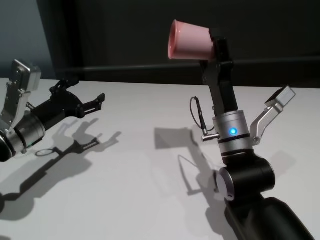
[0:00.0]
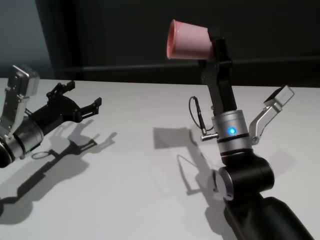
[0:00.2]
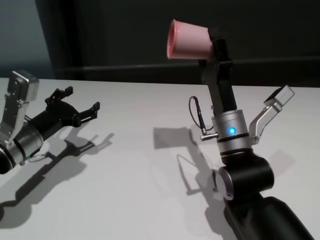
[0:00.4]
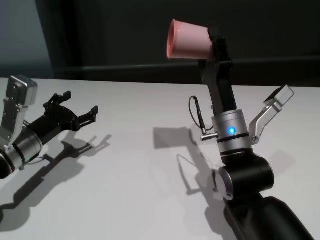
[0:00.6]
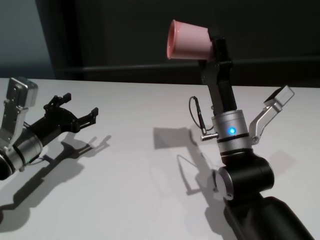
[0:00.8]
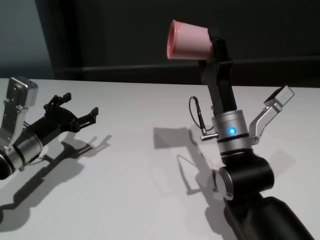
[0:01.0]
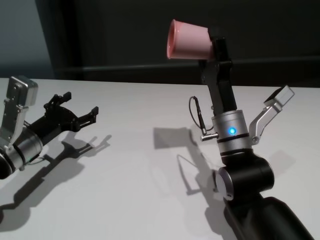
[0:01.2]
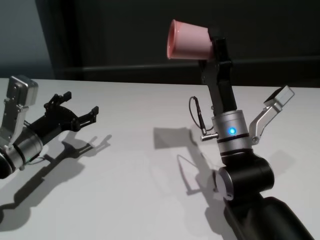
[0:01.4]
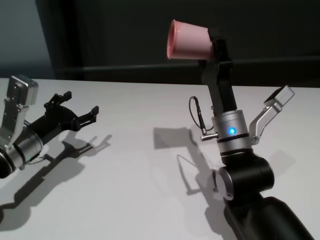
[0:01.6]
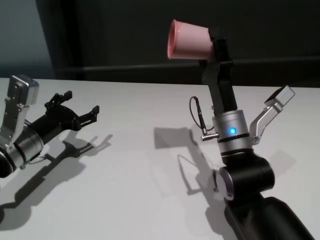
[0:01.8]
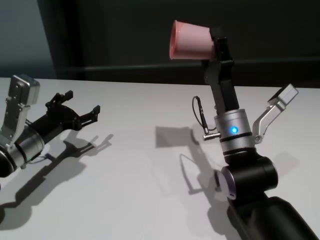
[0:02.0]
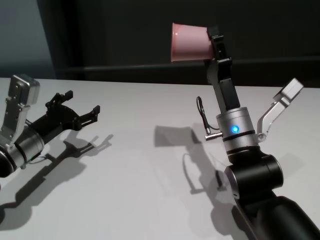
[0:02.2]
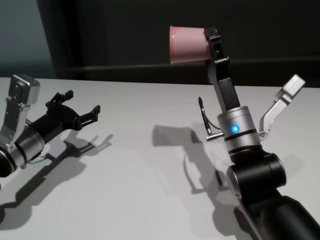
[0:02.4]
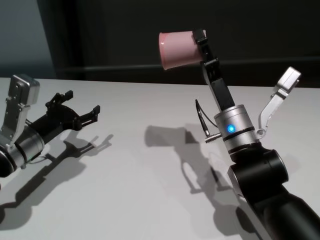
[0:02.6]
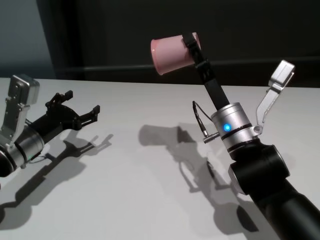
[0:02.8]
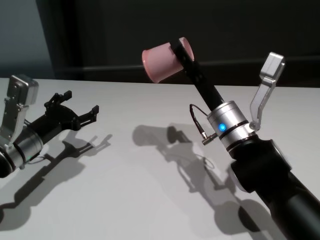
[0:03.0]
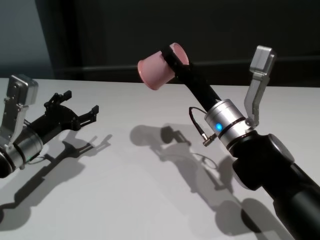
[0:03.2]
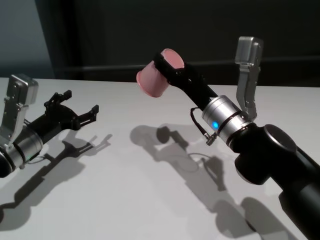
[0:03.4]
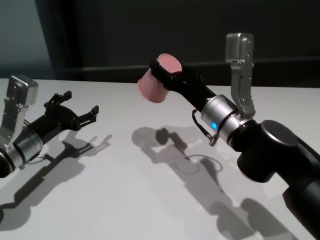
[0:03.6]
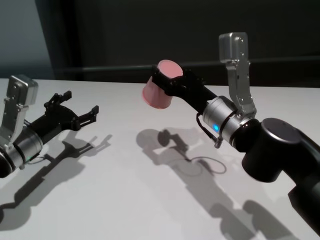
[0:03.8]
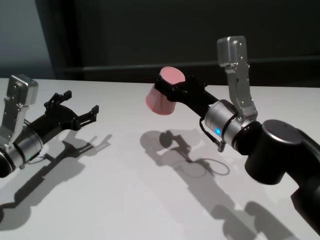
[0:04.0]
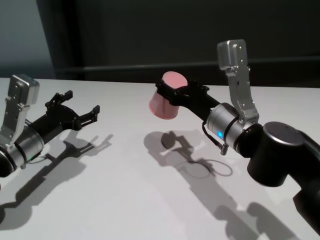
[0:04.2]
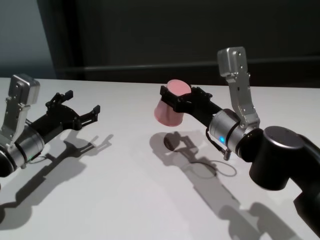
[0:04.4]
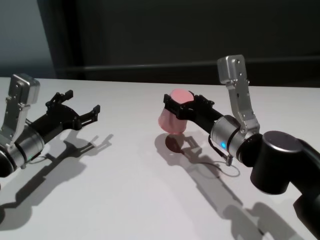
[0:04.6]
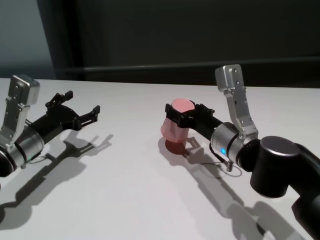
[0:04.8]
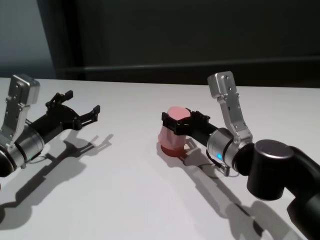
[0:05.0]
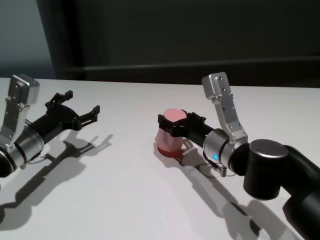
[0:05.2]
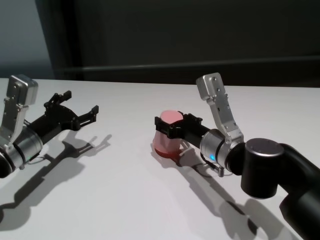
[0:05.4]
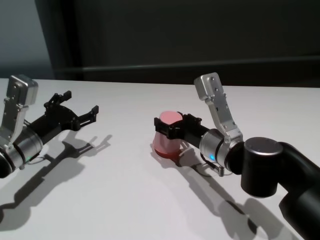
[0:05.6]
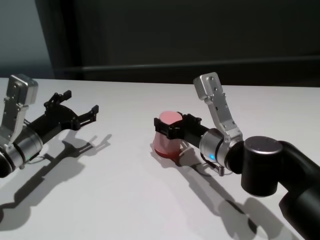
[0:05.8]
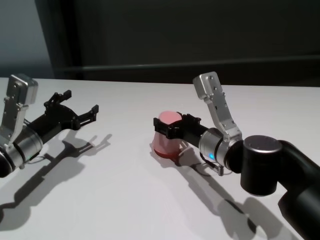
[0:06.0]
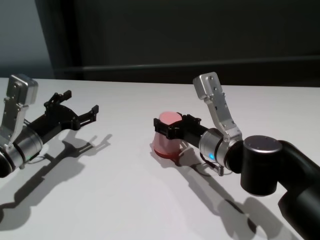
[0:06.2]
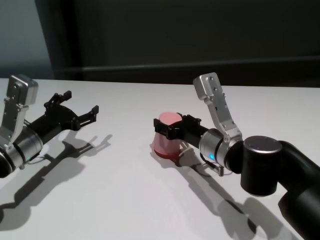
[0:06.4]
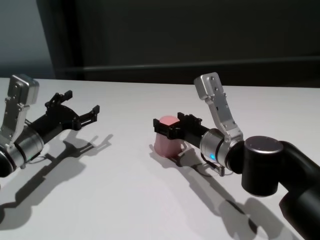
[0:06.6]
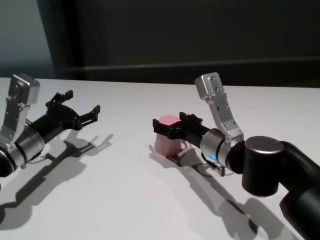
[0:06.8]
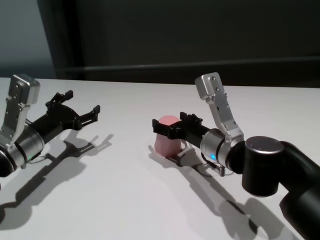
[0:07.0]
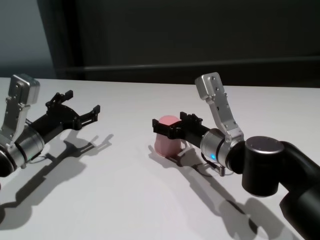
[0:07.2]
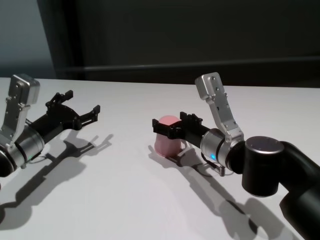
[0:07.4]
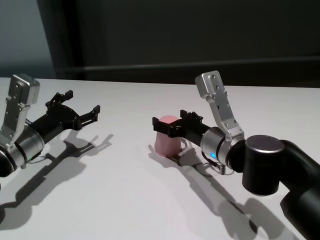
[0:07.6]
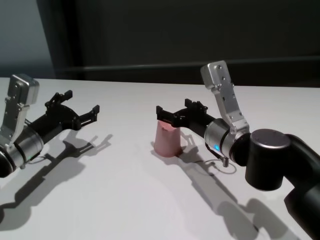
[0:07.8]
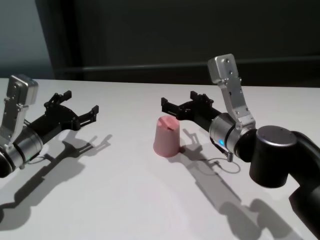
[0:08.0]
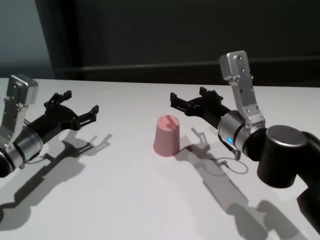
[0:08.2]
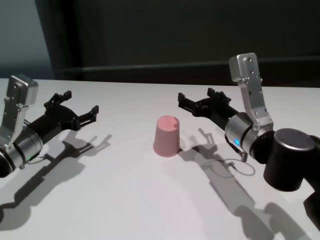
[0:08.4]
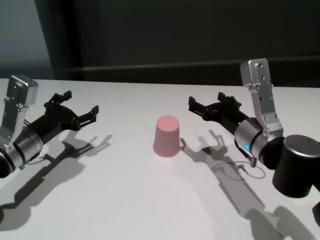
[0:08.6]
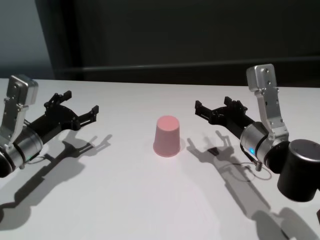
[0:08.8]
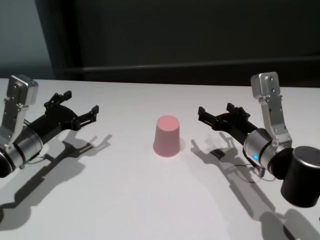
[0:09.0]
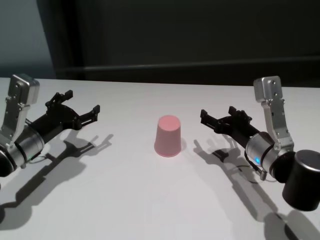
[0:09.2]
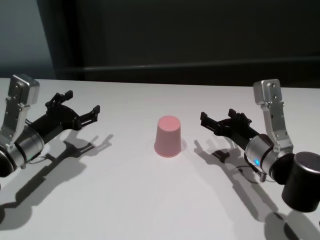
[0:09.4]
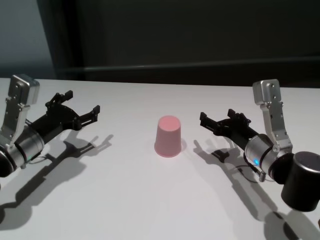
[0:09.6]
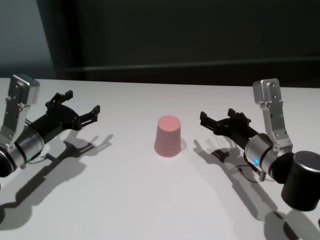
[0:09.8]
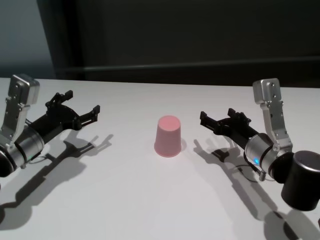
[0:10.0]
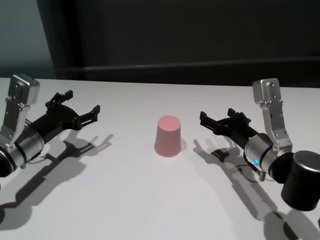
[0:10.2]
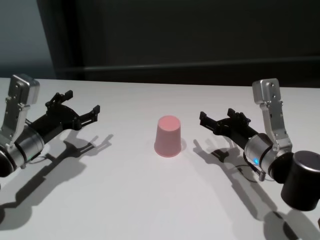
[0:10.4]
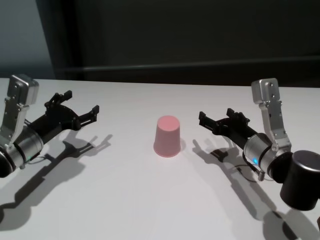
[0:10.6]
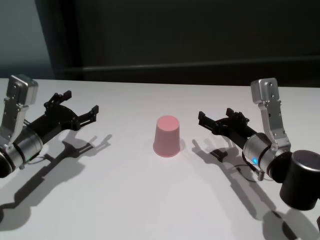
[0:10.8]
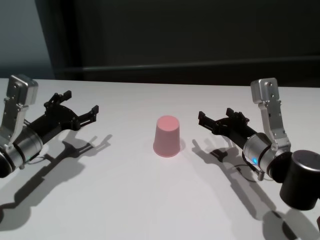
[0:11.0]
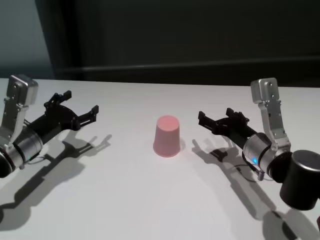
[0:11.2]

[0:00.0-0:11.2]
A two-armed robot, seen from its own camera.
Task of the whole recording: On the white table pick up the cup with one hand and transfer it to the other hand before turning it over.
Step, 0:00.0 to 0:07.6: Place the cup on the table with right gripper.
